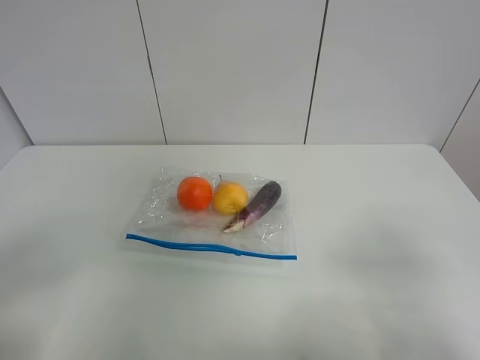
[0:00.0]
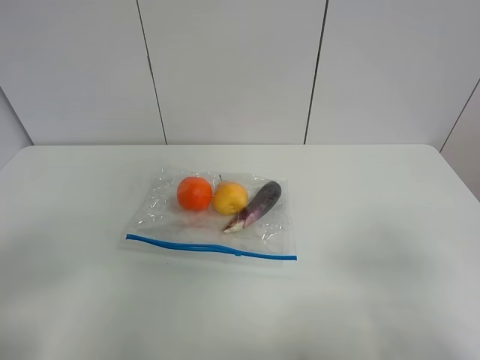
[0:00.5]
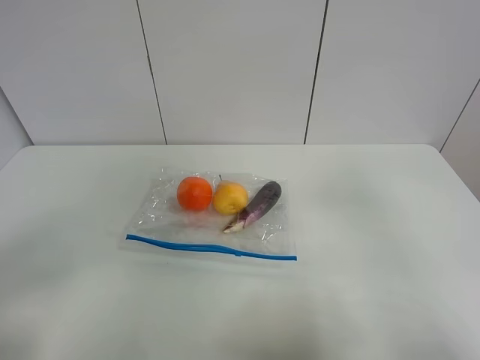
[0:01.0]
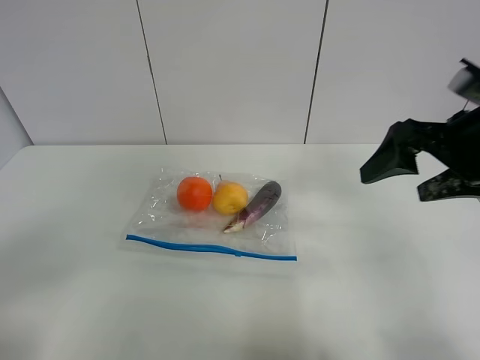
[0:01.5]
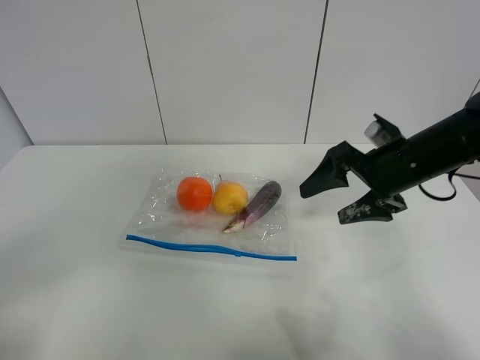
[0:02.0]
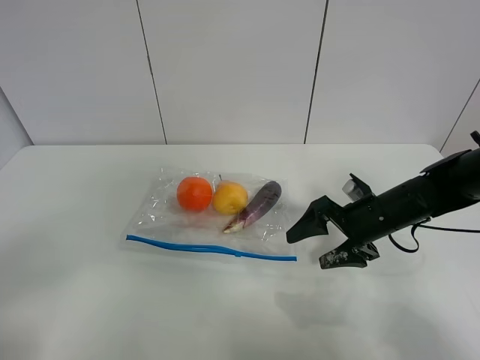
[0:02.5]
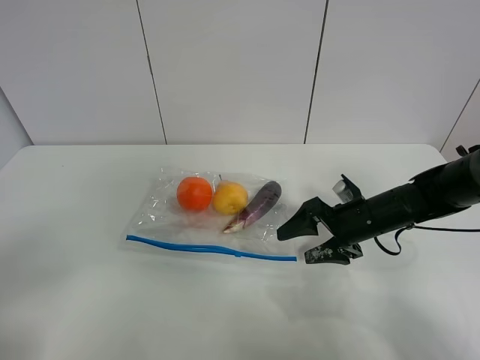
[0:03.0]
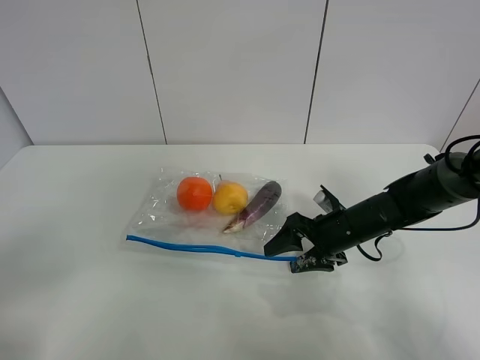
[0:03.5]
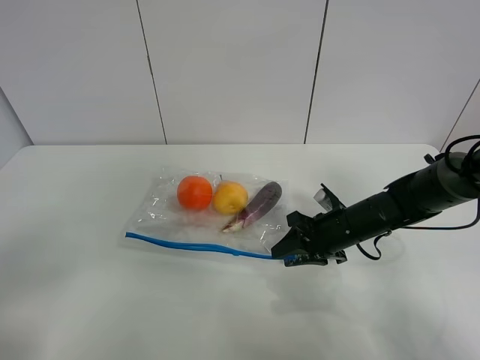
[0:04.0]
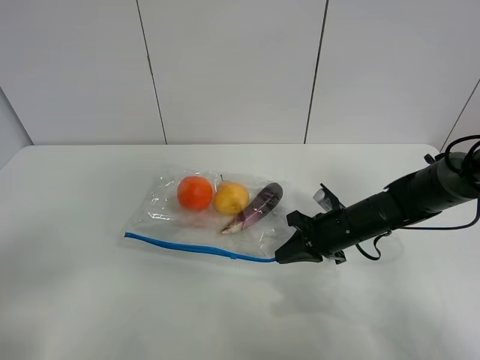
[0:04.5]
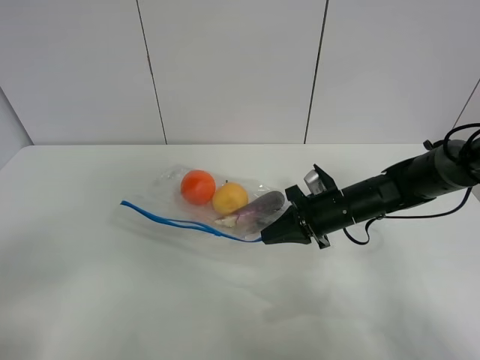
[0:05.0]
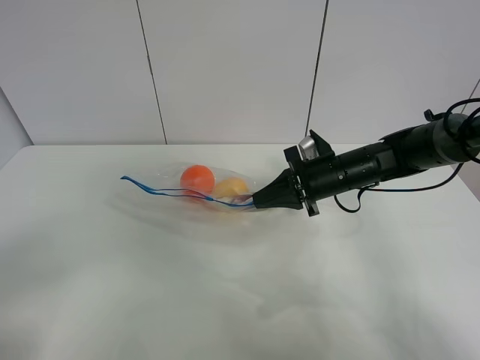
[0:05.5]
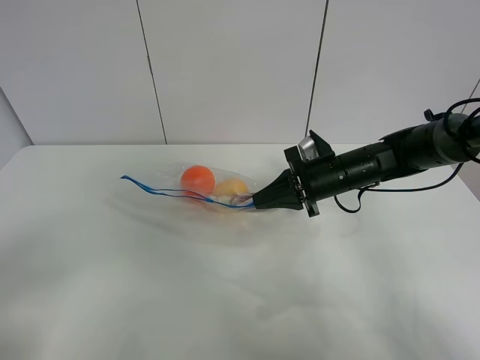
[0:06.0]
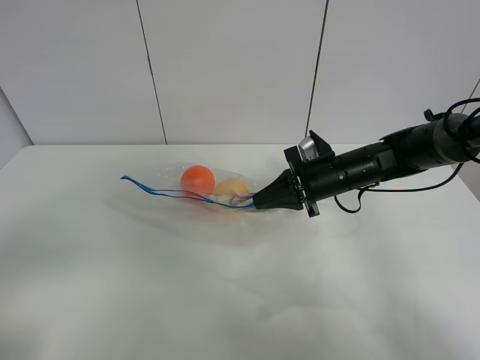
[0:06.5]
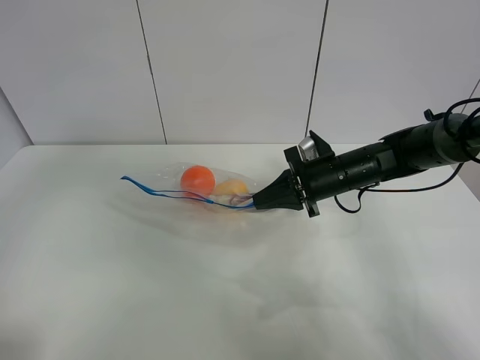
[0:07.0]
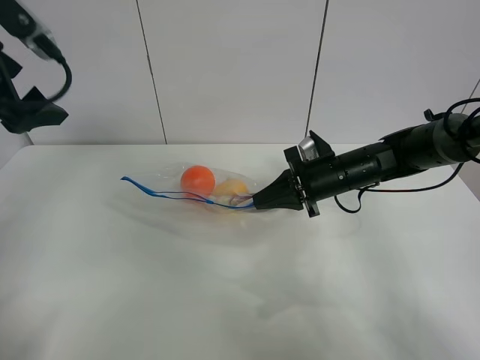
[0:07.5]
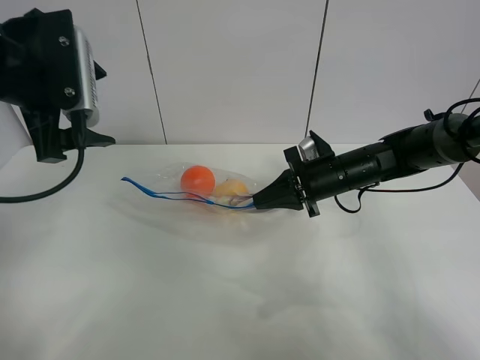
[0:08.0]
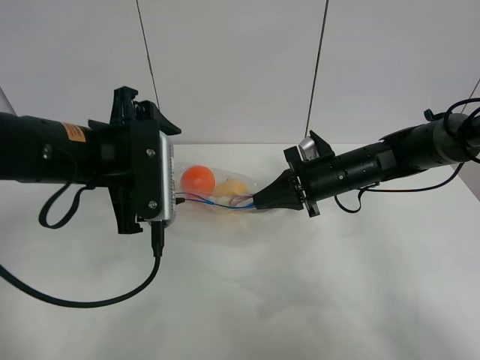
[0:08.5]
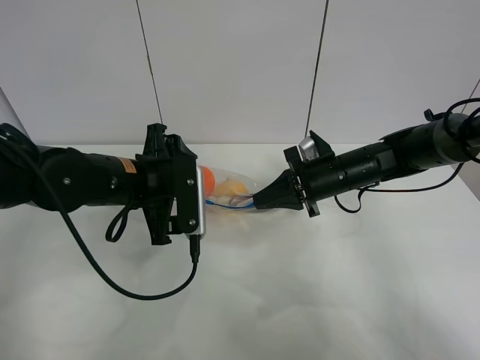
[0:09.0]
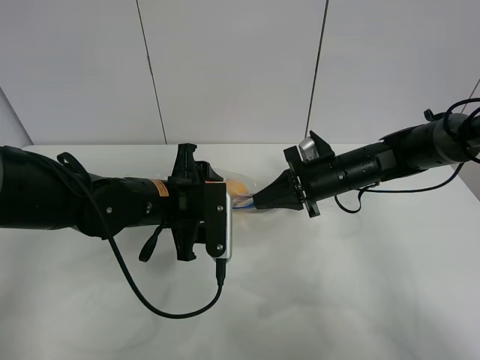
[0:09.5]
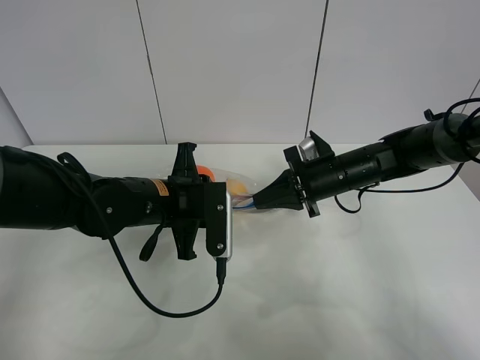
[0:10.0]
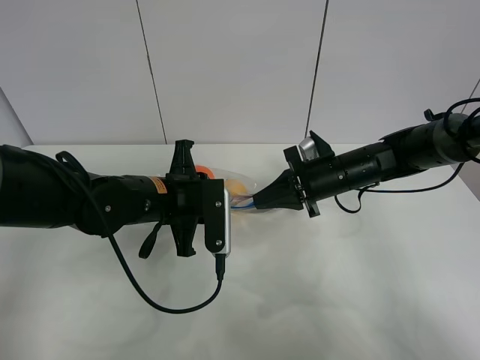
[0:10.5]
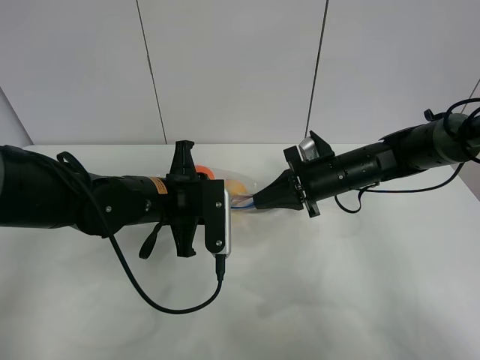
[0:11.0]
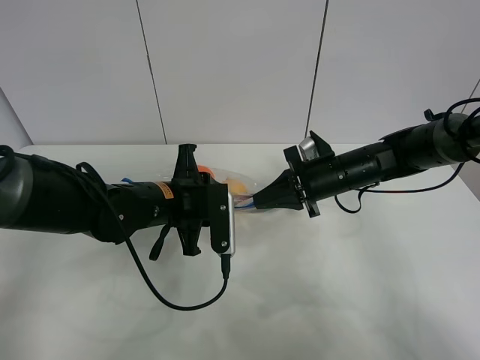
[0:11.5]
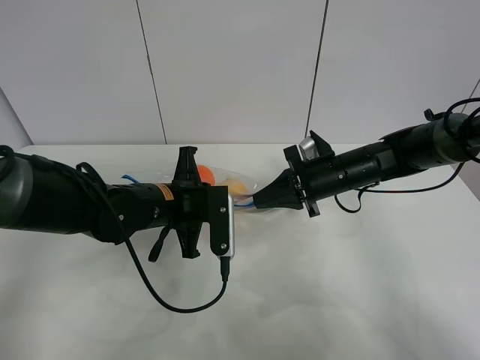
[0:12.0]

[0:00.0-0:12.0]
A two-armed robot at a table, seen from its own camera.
Step, 0:00.0 to 0:04.0: Grasp the fruit bag with right gripper.
Step, 0:04.5 to 0:05.5: Lift the fruit bag with your right gripper.
0:00.0 to 0:02.0: The right gripper moves forward, approximately 30 cm.
0:02.0 to 0:04.0: The right gripper is displaced downward by roughly 10 cm, and closes its fingers.
0:04.0 to 0:06.0: The right gripper moves upward, roughly 5 cm, and closes up.
0:06.0 to 0:08.0: The left gripper heads forward, covering approximately 30 cm.
0:08.0 to 0:10.0: The left gripper moves downward and to the right, about 20 cm, and closes up.
0:10.0 to 0:12.0: There are only small adjustments of the grippers.

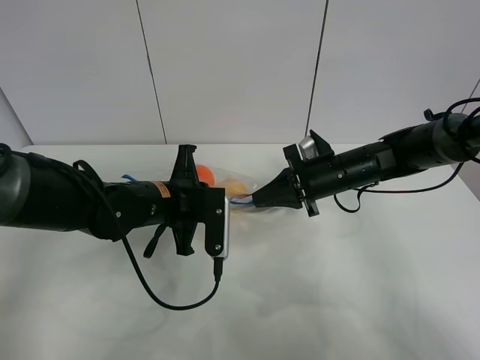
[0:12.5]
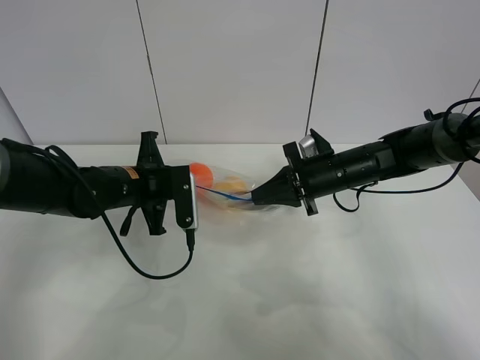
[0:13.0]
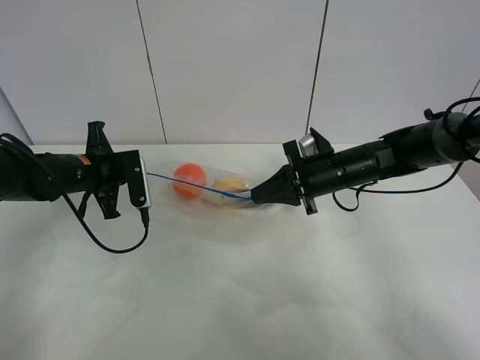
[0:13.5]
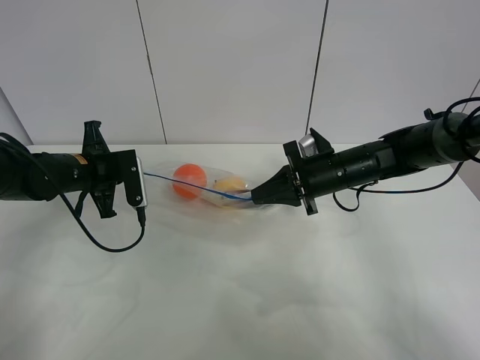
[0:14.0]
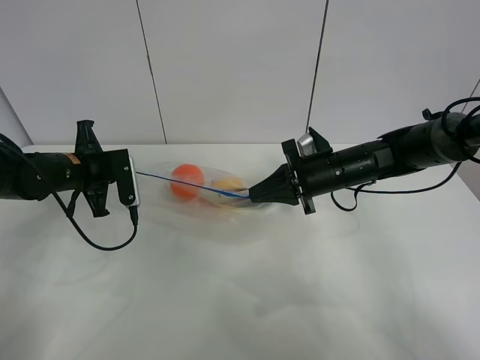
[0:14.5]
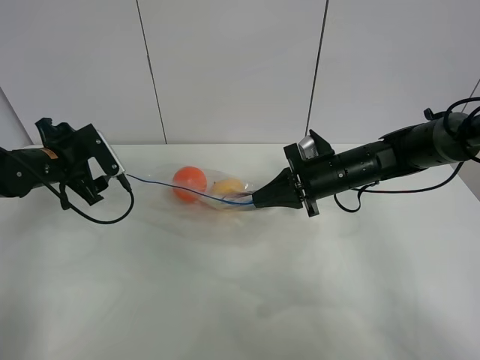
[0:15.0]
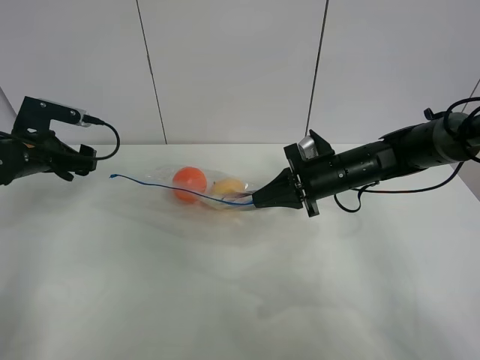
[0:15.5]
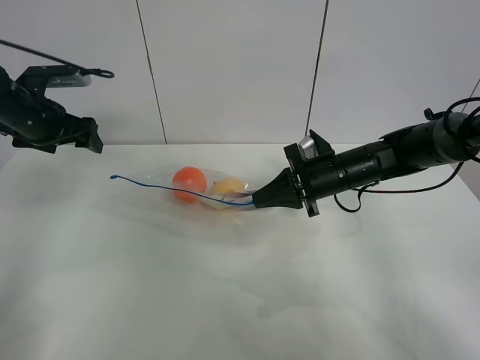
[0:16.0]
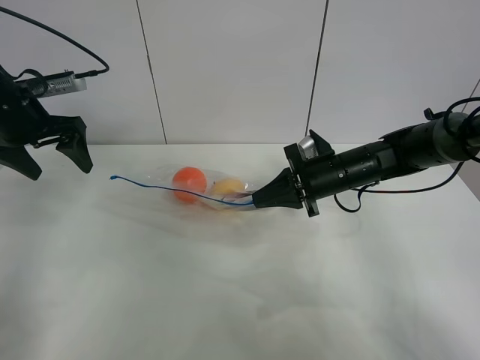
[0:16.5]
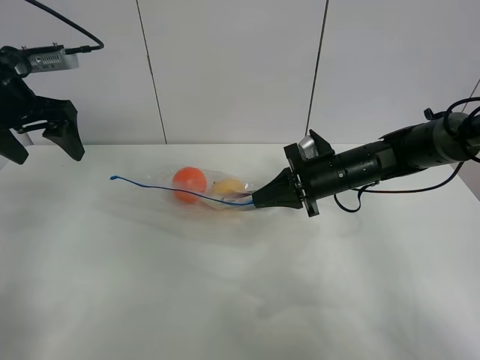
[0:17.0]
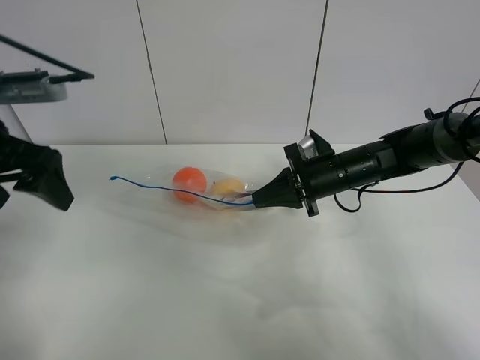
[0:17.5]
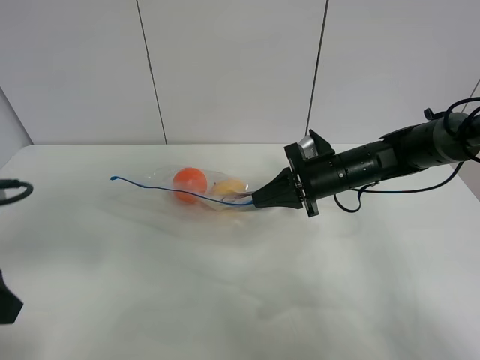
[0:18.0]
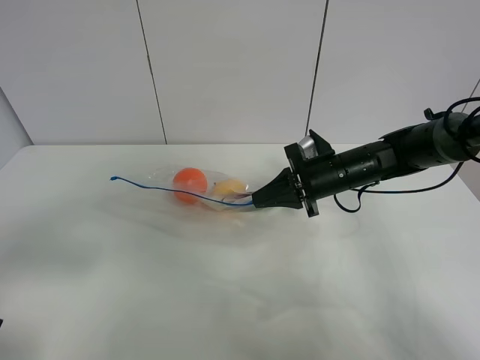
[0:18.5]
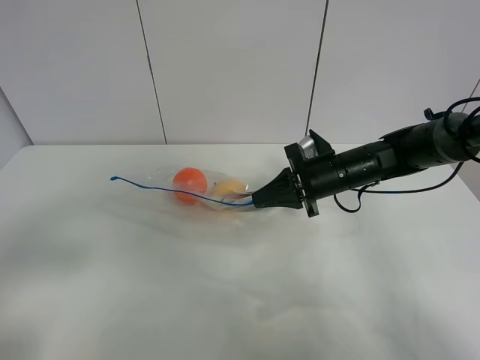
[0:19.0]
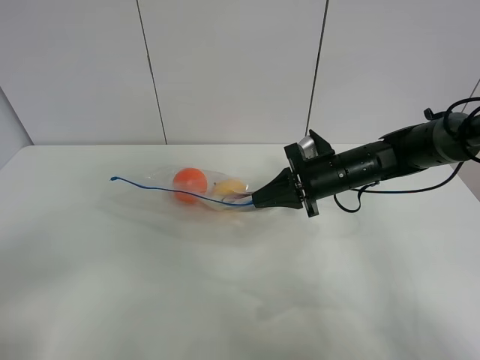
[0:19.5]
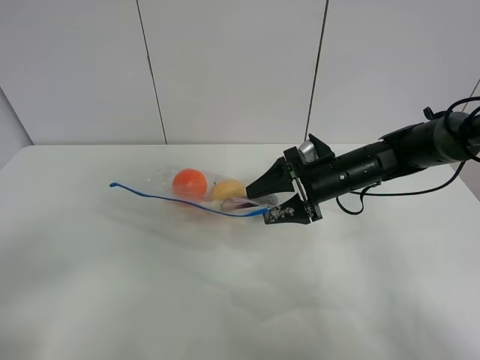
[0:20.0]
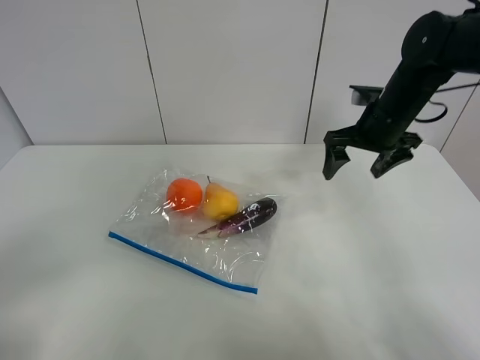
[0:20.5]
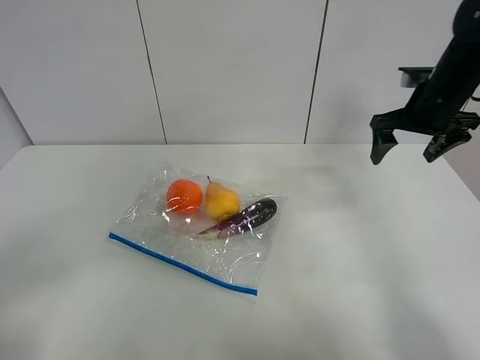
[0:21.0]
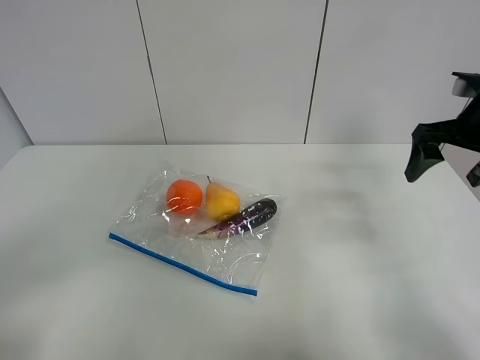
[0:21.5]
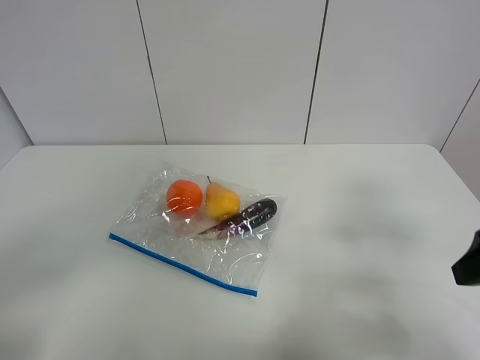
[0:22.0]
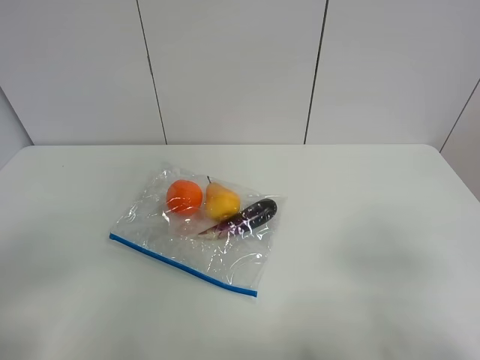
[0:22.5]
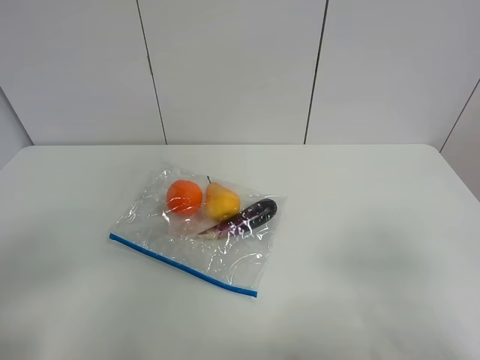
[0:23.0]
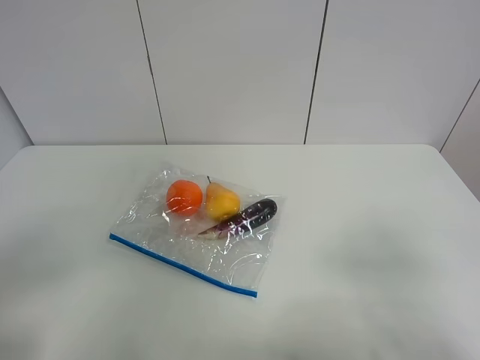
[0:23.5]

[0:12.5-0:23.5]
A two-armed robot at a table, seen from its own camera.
Step, 0:12.5 to 0:15.0: Pull the fruit bag with left gripper.
0:12.5 to 0:14.5: The left gripper travels to the left by approximately 15 cm.
0:14.5 to 0:16.0: The left gripper goes about 10 cm upward and to the left, and opens.
0:16.0 to 0:18.0: The left gripper goes roughly 30 cm backward.
0:18.0 to 0:20.0: The right gripper opens up, while the left gripper is displaced backward by about 10 cm.
0:20.0 to 0:21.5: The right gripper goes roughly 20 cm to the right and upward.
0:21.5 to 0:23.5: The right gripper travels backward by approximately 30 cm.

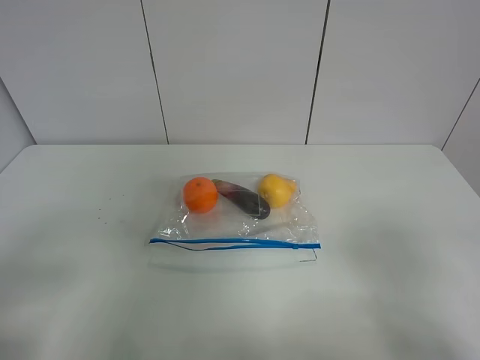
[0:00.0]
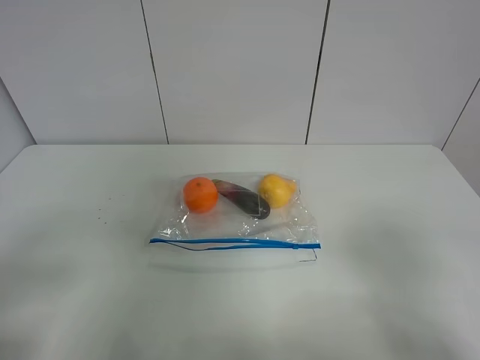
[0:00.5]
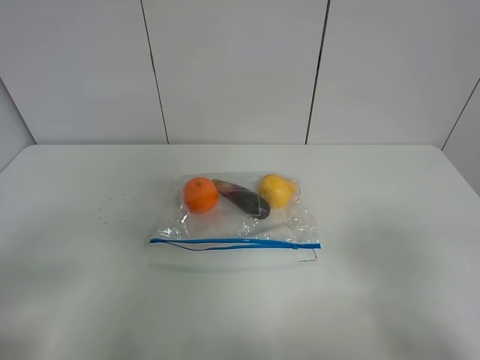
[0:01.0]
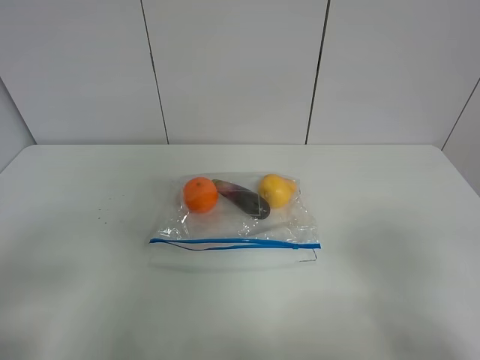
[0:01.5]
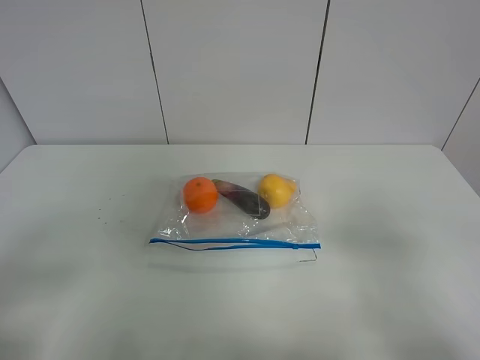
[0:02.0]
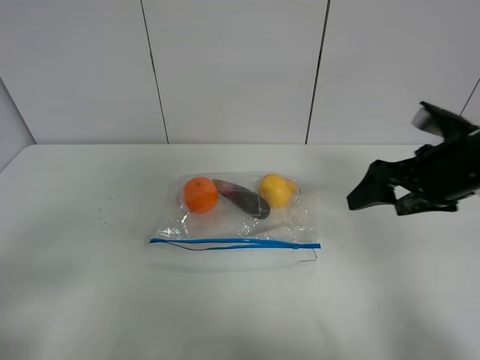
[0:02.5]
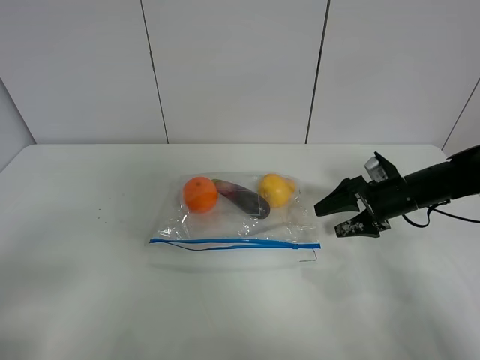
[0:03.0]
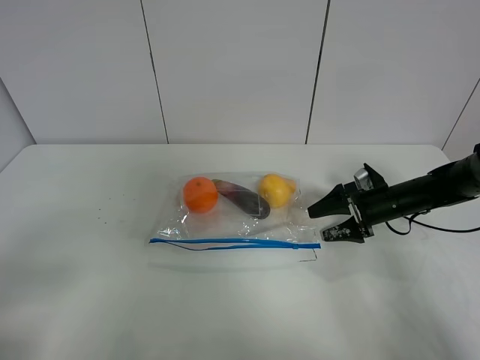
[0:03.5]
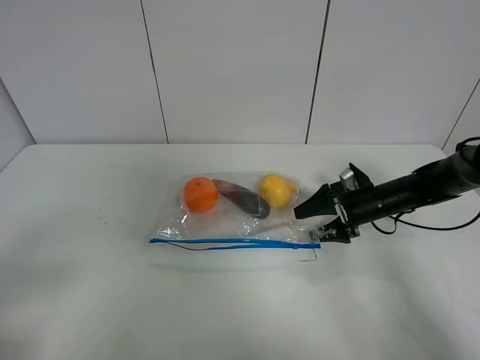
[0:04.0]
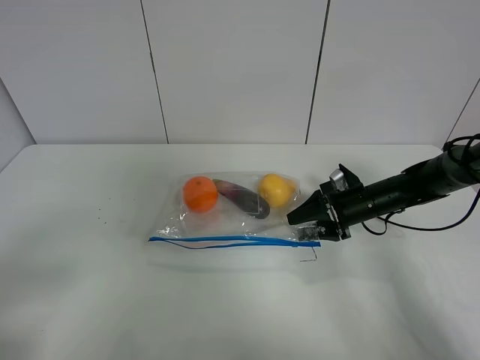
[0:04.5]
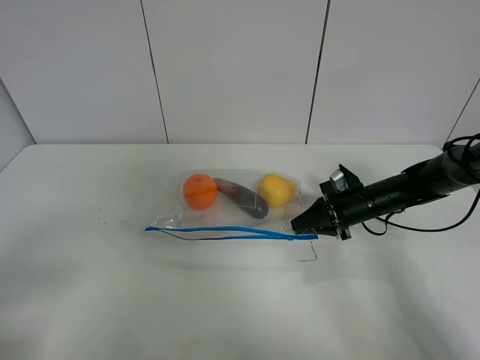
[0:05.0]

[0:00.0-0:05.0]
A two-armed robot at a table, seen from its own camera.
0:00.0 to 0:02.5: The right gripper is displaced forward by approximately 25 cm.
0:02.5 to 0:05.0: The right gripper heads downward and forward, covering some 20 cm, and closes.
